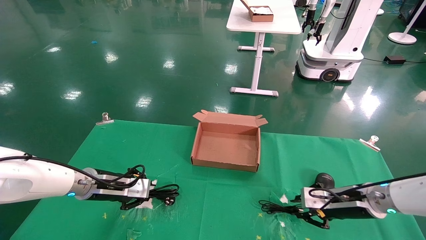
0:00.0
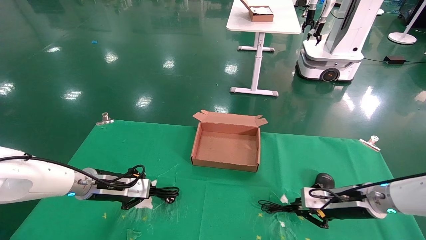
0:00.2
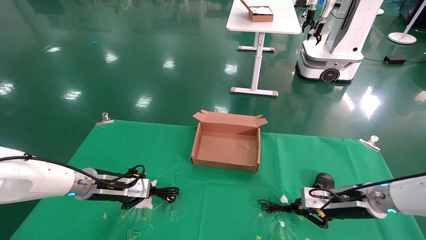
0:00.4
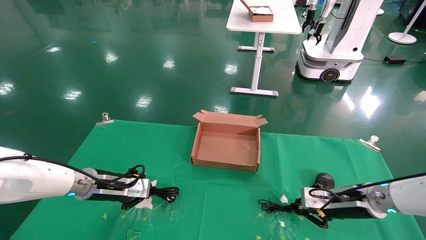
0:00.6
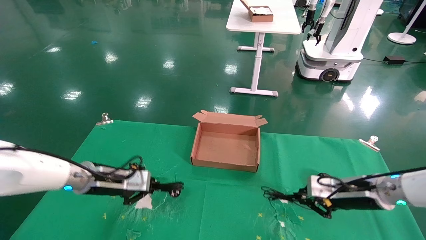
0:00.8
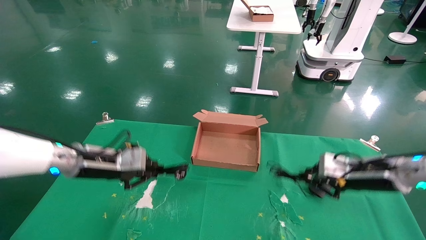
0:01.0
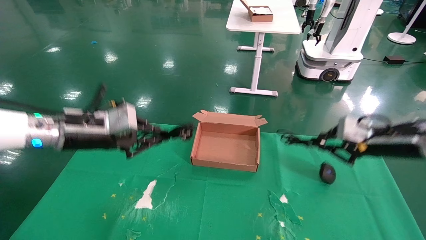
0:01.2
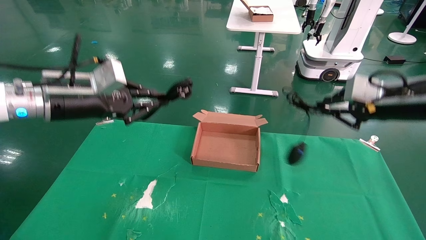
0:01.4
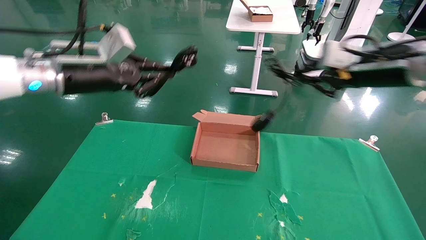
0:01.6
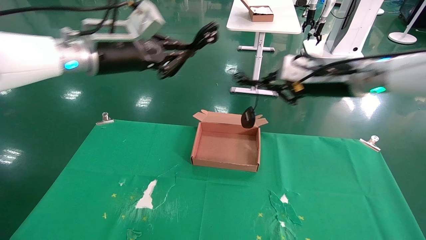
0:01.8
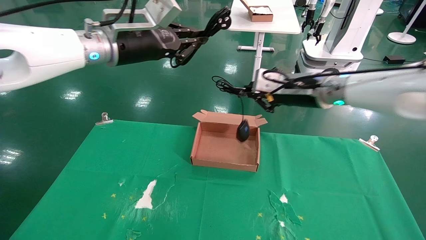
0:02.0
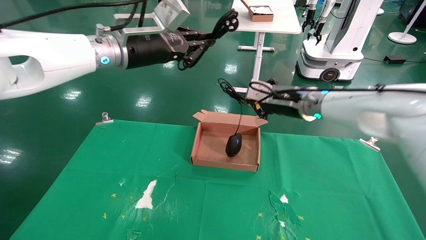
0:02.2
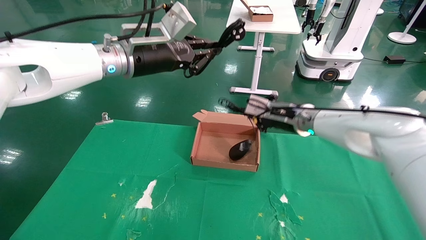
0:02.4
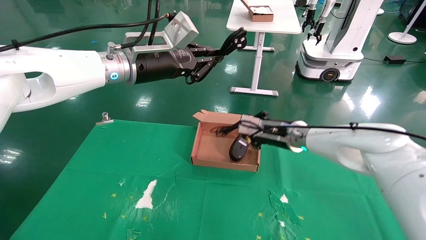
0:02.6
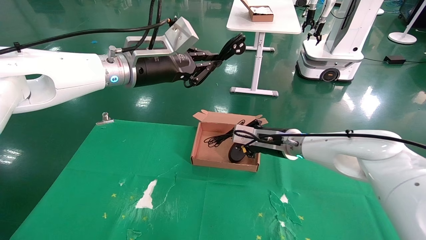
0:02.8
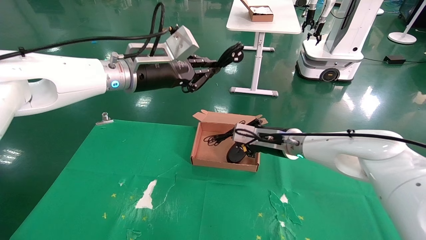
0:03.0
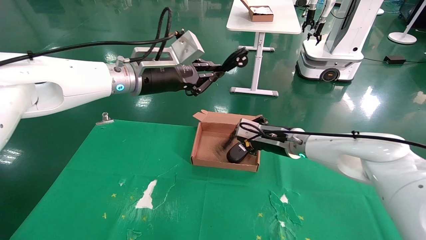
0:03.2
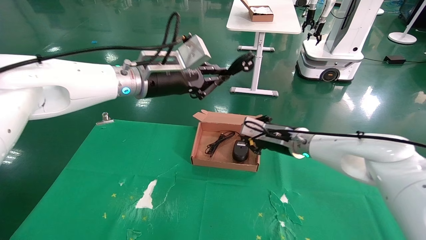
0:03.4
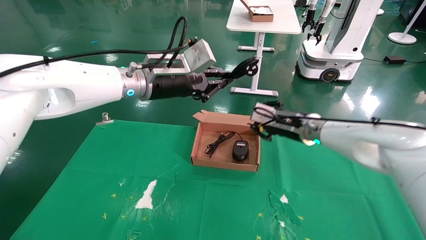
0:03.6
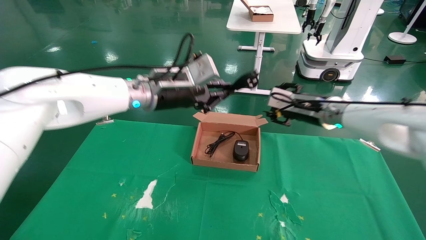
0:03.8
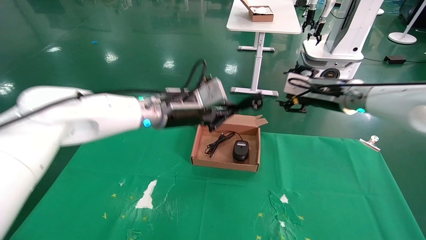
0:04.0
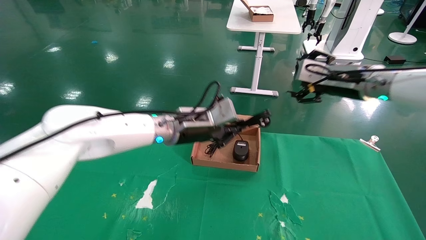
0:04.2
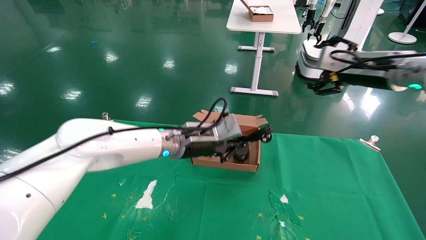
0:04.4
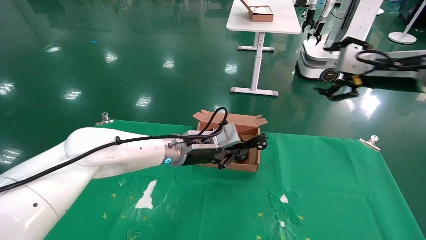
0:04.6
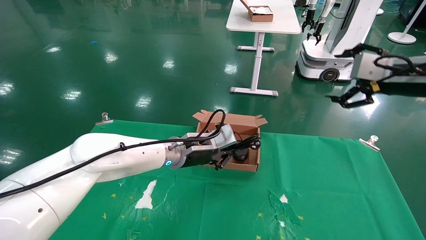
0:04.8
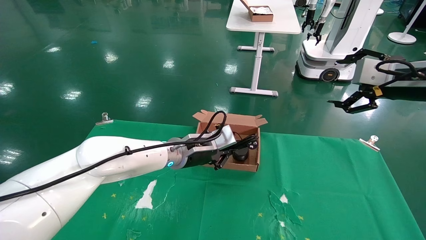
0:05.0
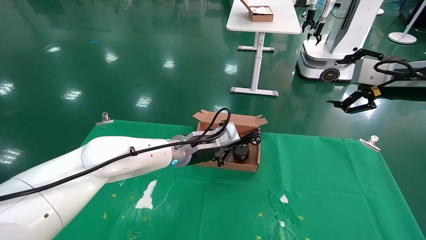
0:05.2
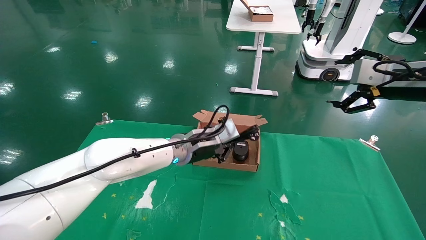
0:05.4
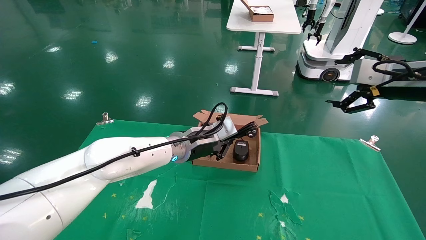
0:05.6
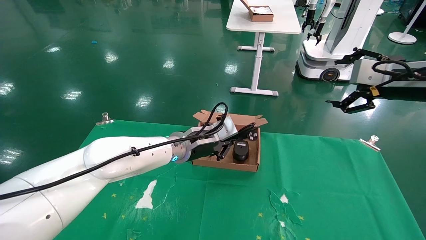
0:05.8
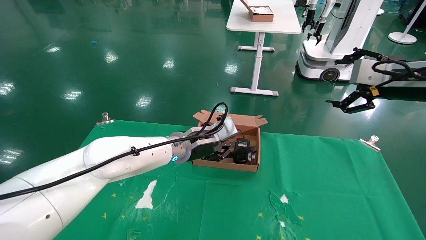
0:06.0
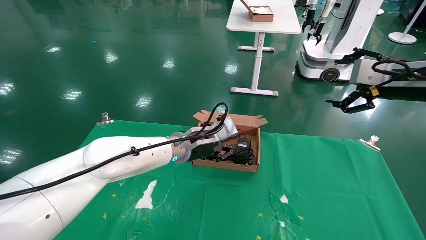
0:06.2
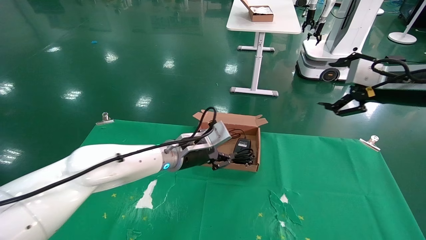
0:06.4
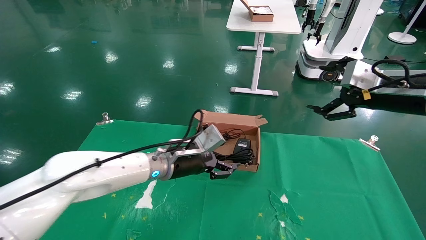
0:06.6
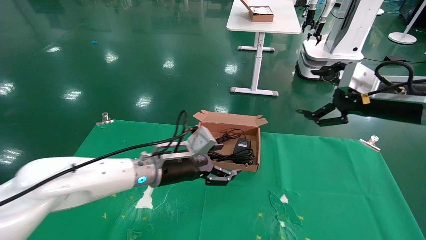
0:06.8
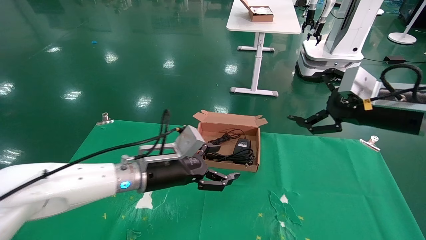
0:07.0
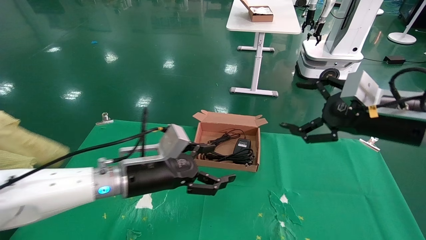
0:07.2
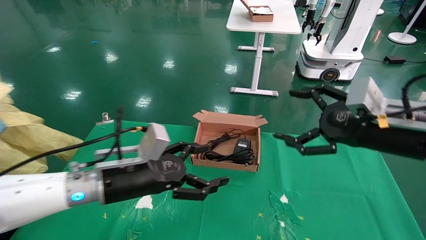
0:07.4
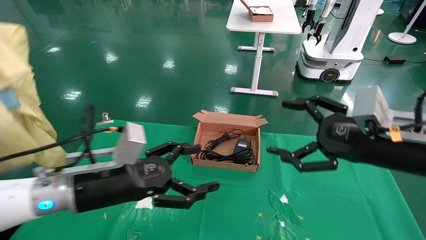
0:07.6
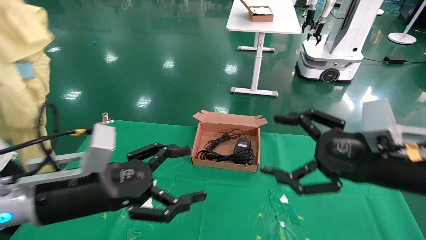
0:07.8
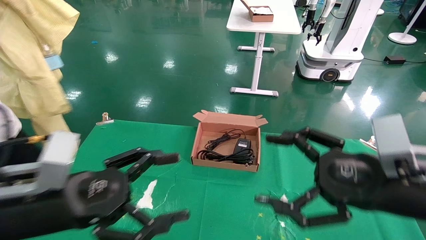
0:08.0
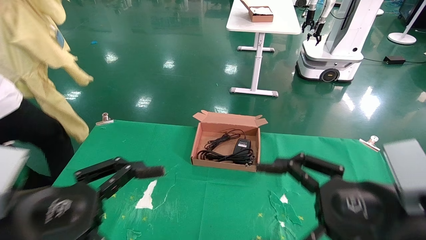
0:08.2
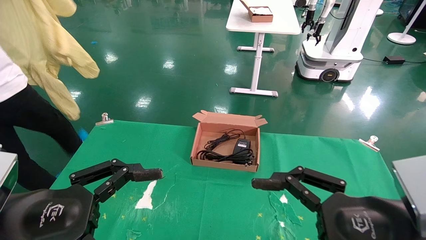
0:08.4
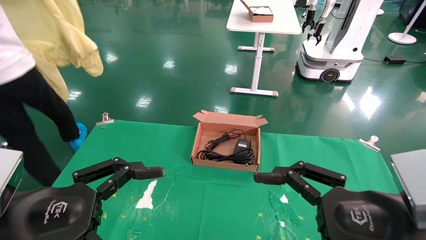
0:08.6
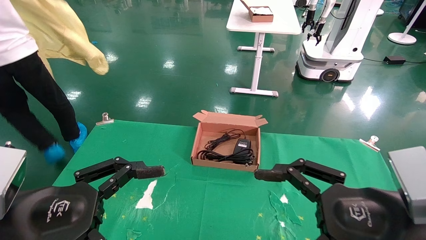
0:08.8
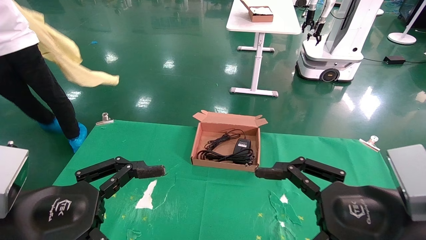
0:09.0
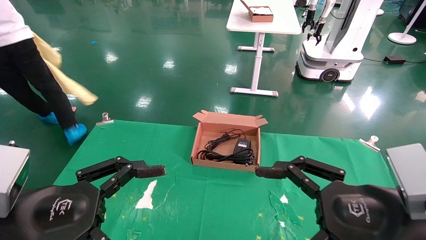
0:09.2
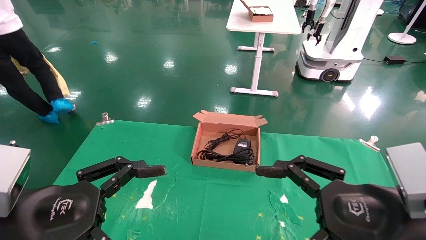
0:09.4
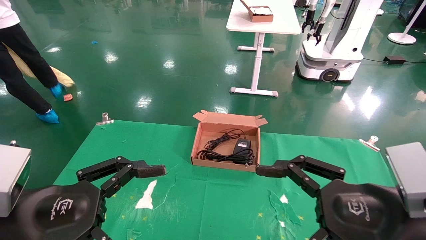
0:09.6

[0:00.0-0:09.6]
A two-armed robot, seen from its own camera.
Step, 0:00.8 to 0:05.8: Place the mouse and power cord into the box.
0:00.0 to 0:01.6: The grippers both shift upward by some 25 cm.
0:01.6 to 0:03.2: The left gripper shifts roughly 10 cm to the right. Meanwhile the right gripper is displaced downward, to the left and forward by approximately 20 cm.
0:03.2 to 0:04.8: The right gripper shifts roughly 30 cm to the right, upward and backward, and opens up. The left gripper goes some 15 cm downward.
0:04.8 to 0:06.4: The left gripper opens its fingers.
0:06.4 to 0:08.0: The left gripper goes approximately 30 cm backward and to the left, and opens its fingers. Meanwhile the right gripper shifts roughly 20 cm backward, downward and to the left.
